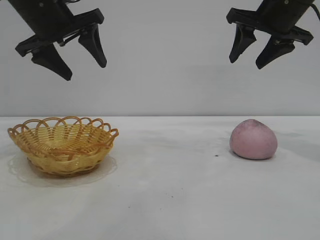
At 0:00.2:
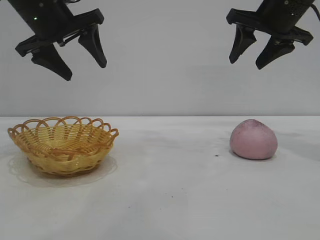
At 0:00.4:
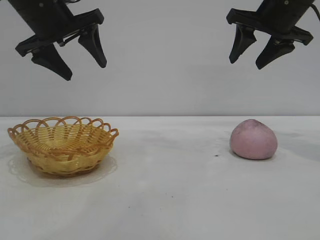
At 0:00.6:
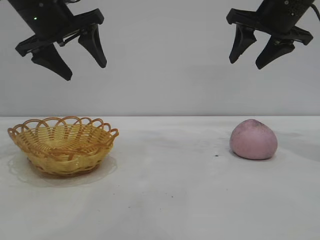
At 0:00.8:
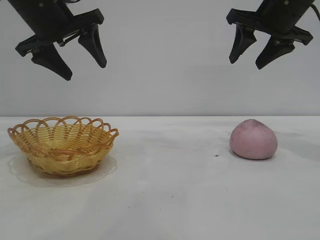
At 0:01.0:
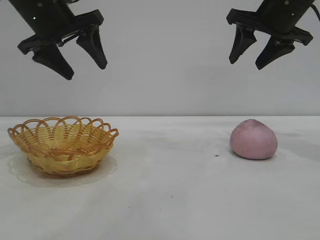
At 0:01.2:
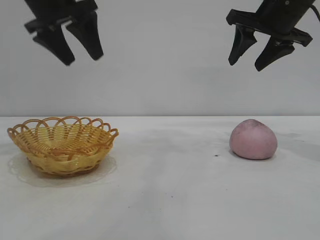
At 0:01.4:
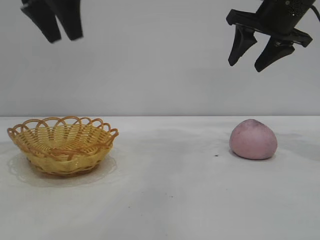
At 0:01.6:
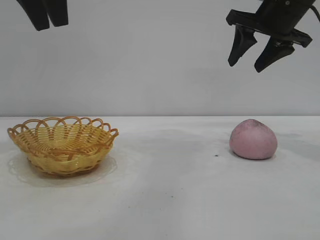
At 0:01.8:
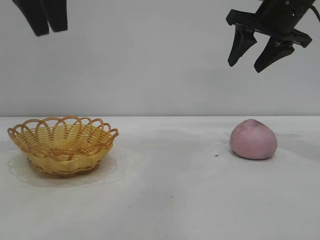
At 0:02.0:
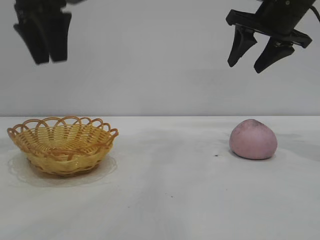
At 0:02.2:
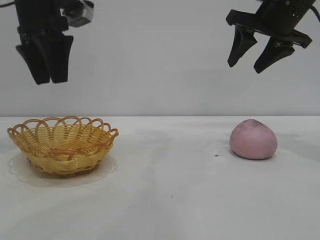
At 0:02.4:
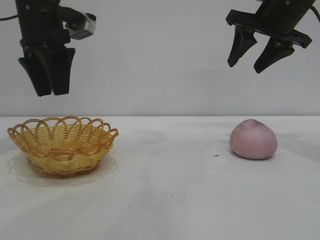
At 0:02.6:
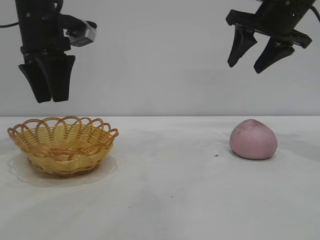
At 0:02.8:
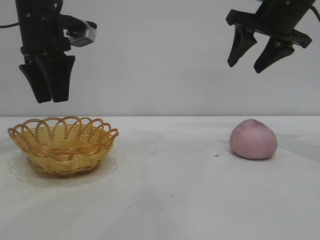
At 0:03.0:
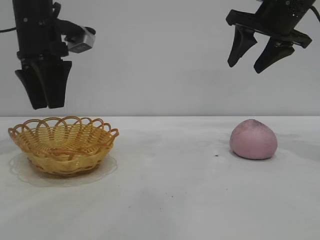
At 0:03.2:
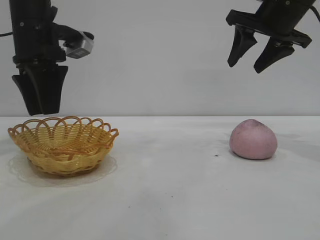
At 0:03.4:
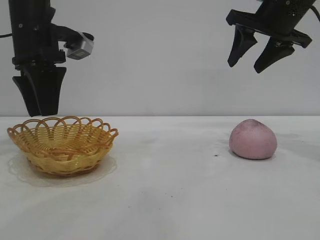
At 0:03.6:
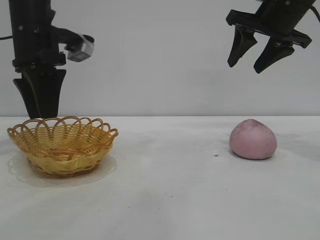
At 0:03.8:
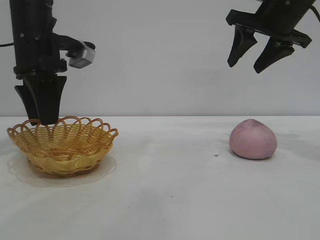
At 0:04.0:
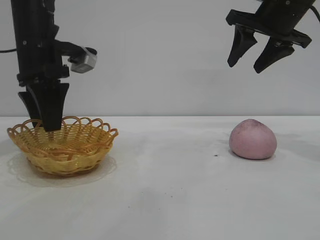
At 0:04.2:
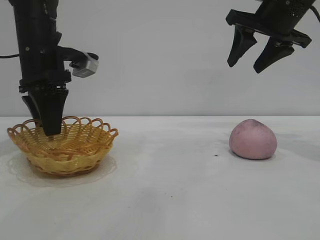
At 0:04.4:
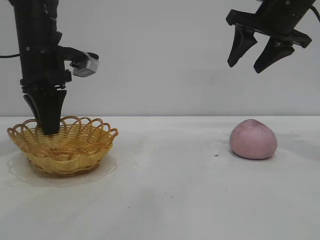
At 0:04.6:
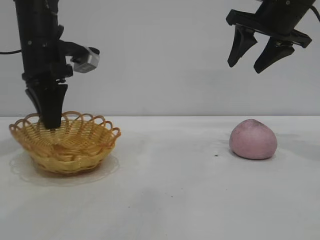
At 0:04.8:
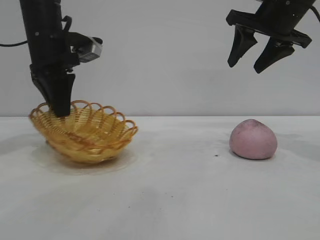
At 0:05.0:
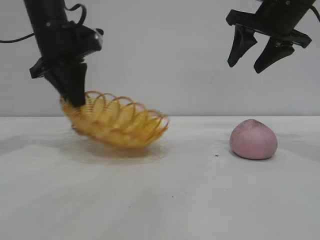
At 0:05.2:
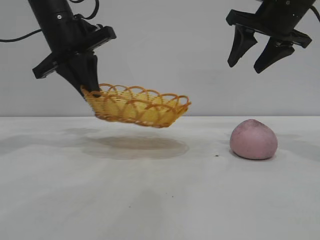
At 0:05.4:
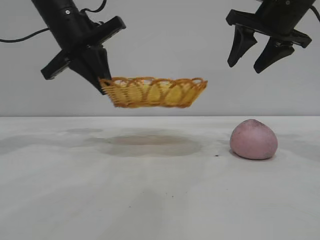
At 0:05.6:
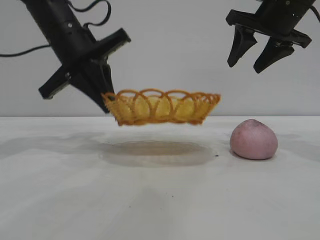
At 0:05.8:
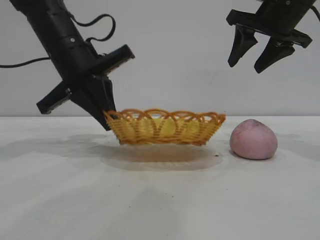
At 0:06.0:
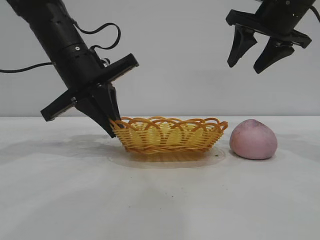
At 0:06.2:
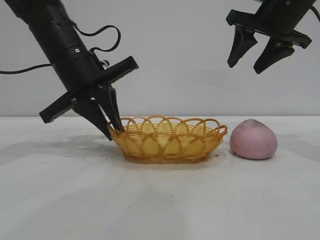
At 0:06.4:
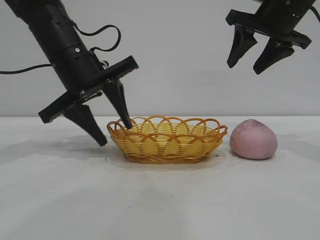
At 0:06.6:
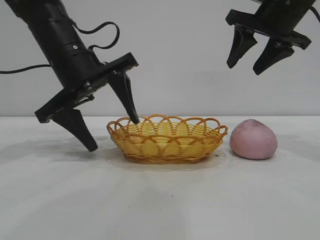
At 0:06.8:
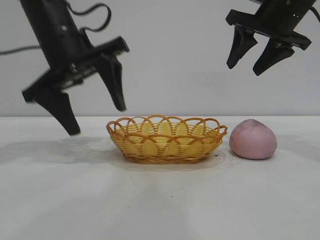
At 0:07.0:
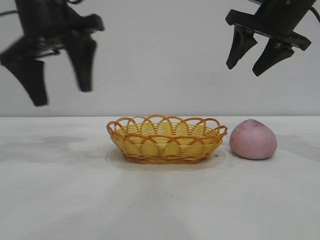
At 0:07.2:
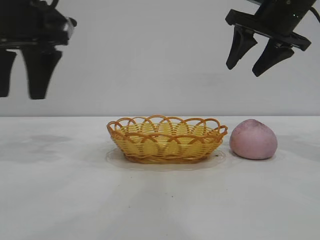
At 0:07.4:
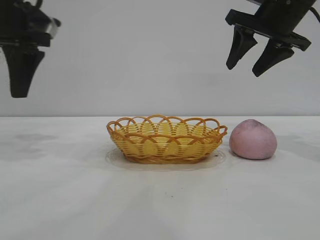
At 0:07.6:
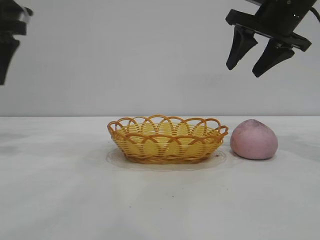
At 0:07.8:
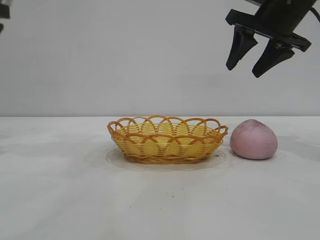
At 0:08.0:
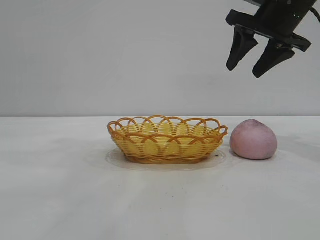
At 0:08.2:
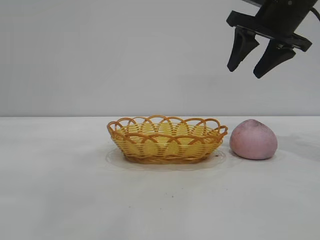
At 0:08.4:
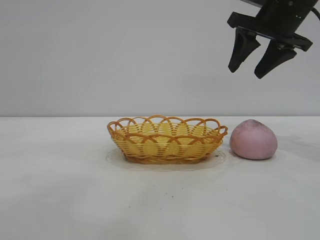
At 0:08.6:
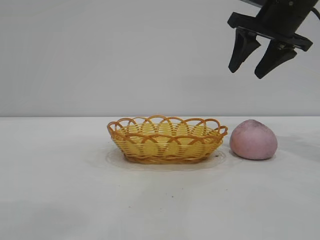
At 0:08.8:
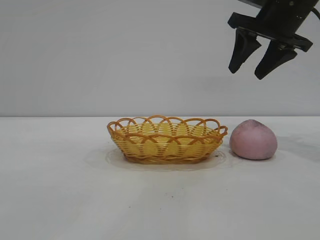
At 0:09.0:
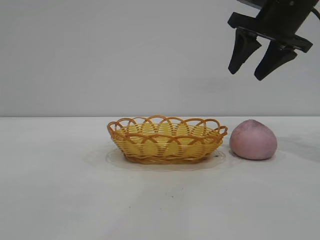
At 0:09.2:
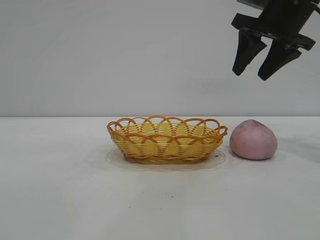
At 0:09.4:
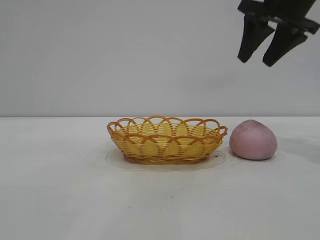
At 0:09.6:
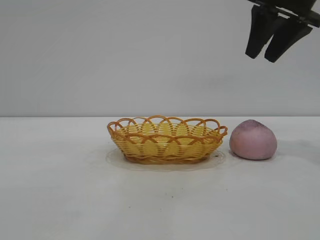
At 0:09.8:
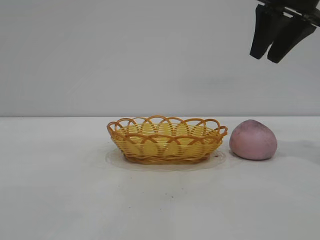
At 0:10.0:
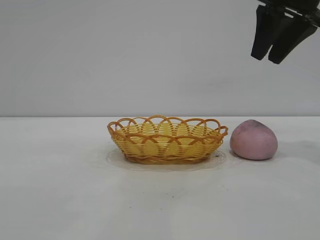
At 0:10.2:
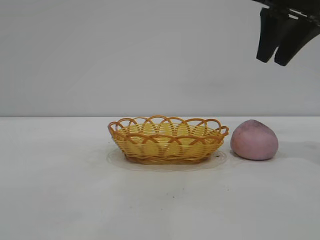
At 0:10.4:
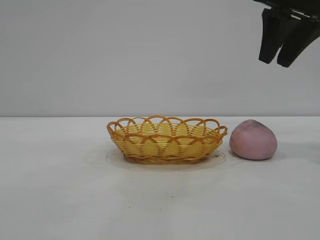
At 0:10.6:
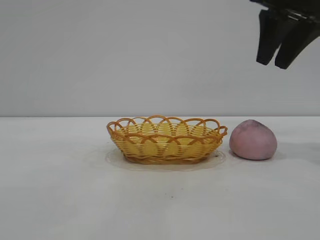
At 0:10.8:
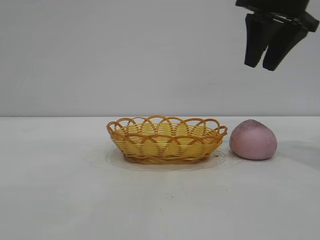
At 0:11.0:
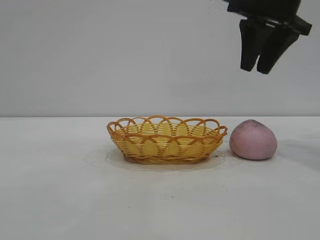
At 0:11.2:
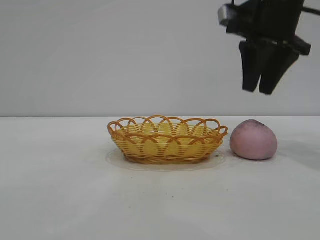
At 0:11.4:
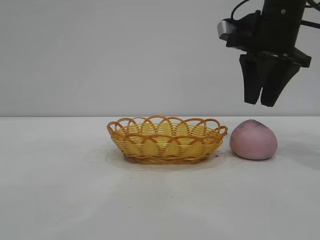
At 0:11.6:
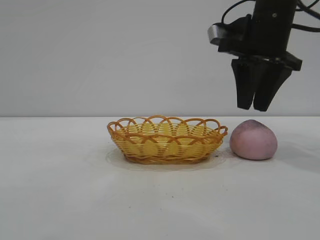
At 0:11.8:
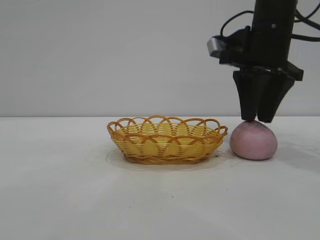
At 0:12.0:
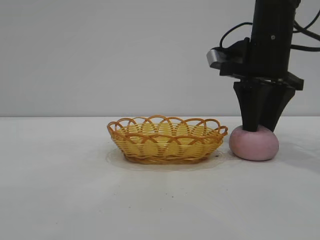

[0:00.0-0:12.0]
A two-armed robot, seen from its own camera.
Task of the whole recording: pick up the peach and put it into the basket.
Step, 0:00.0 to 0:06.6: Move the basket to the center of view.

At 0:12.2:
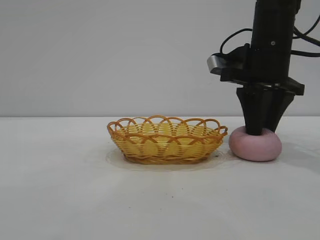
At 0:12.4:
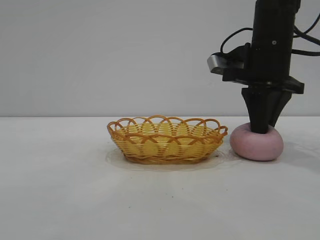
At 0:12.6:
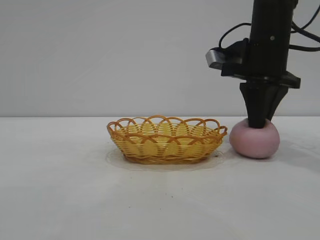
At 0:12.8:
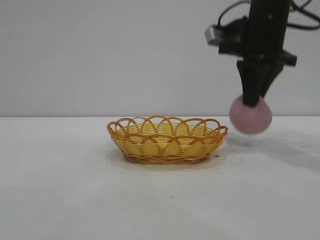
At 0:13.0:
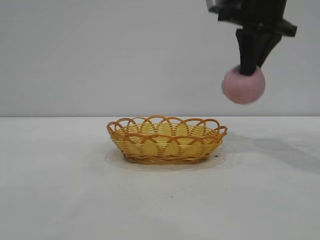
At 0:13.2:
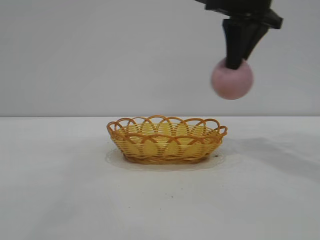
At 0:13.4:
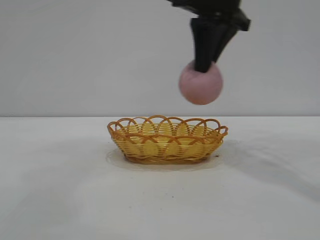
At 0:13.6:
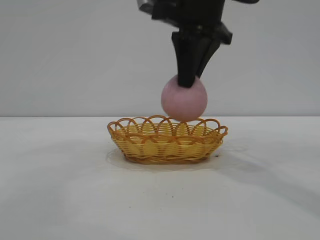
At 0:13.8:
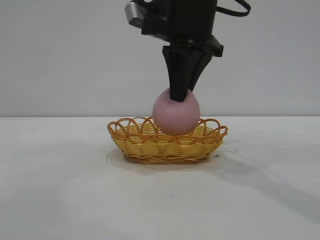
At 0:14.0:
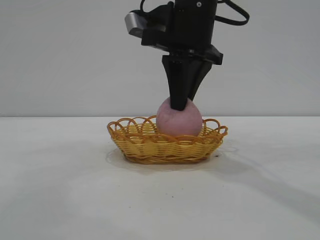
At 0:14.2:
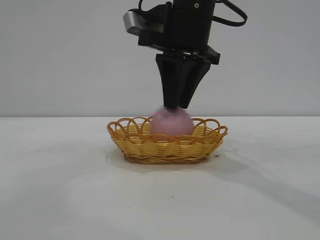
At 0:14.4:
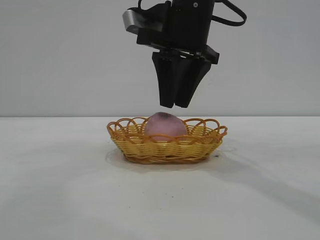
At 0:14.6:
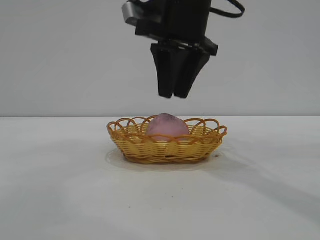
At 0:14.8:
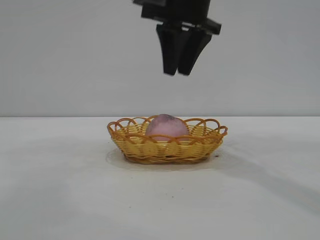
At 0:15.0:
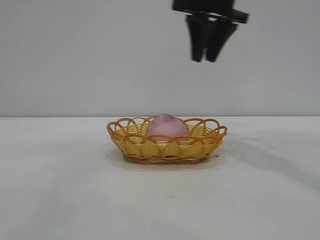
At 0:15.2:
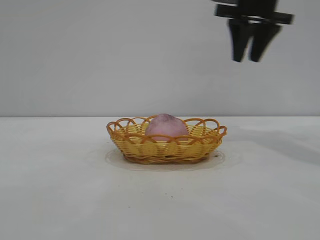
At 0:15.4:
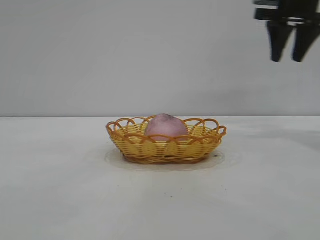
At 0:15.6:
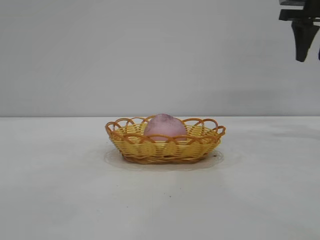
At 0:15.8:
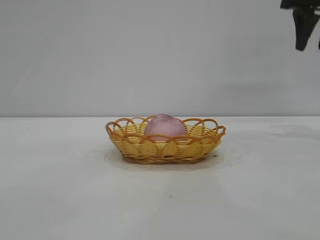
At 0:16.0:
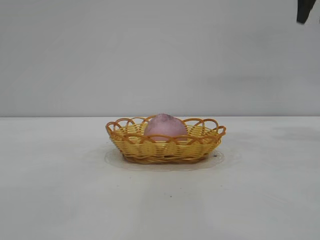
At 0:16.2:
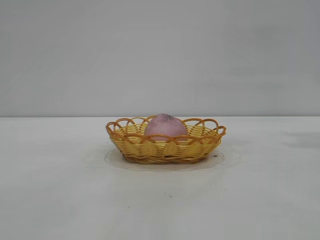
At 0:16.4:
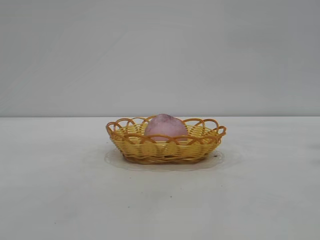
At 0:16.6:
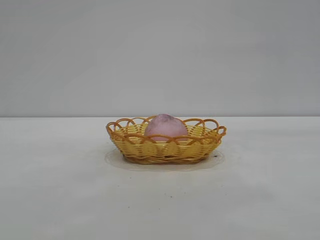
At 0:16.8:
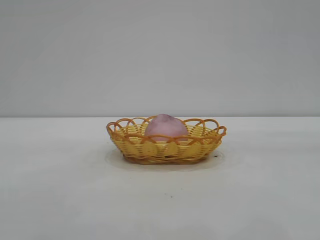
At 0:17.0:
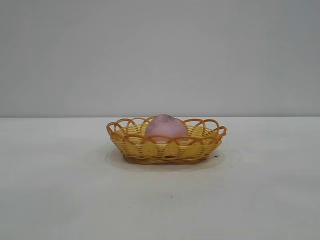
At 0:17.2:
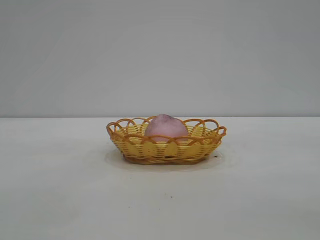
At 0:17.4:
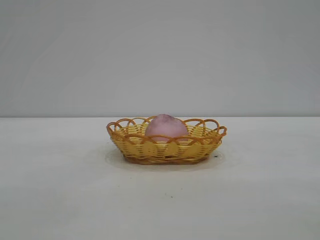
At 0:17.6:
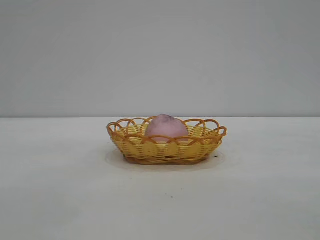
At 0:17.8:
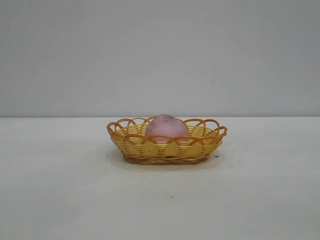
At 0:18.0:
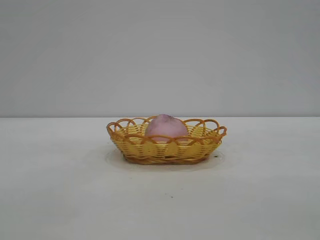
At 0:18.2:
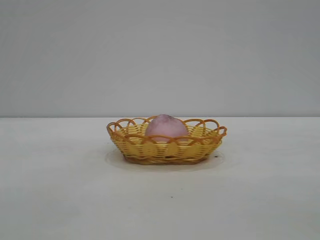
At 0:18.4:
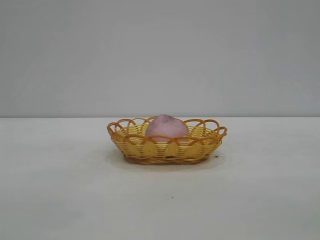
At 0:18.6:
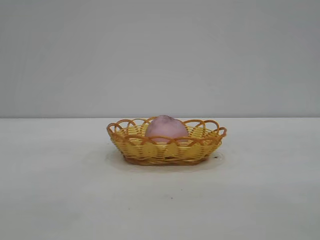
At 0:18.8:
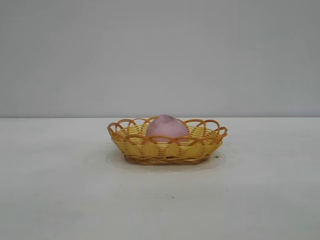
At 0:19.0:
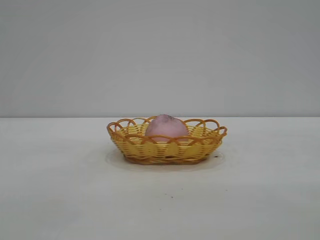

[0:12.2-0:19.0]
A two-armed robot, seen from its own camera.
Task of the whole recording: pick up the peach and put it into the basket.
Step, 0:13.0 to 0:14.6: place the peach into the basket.
